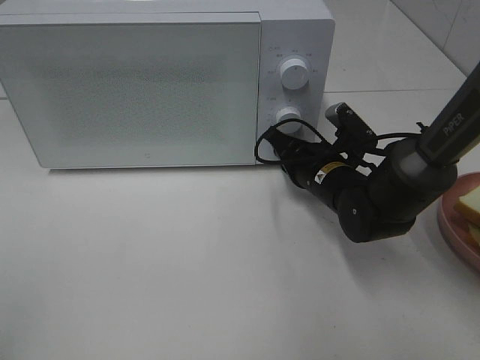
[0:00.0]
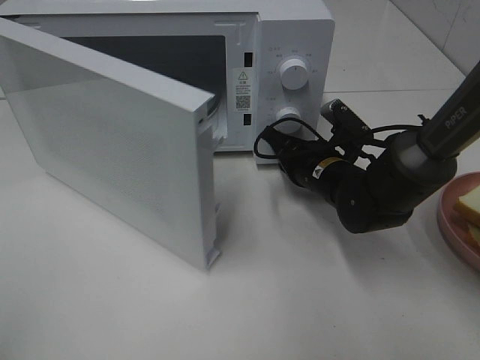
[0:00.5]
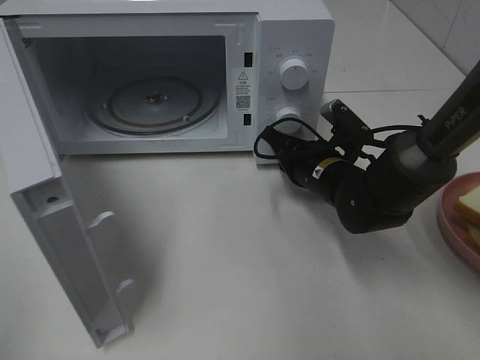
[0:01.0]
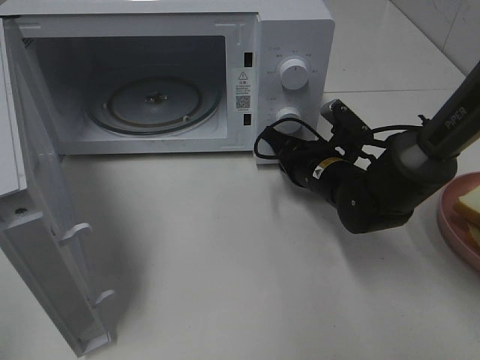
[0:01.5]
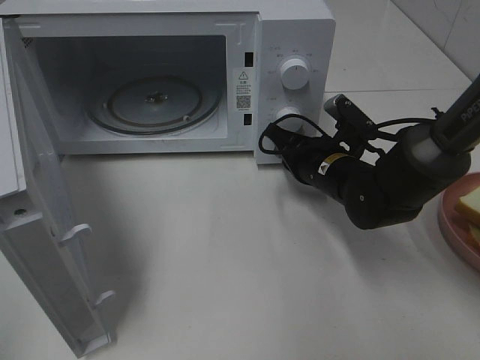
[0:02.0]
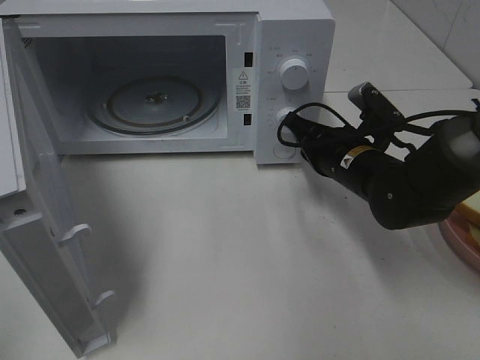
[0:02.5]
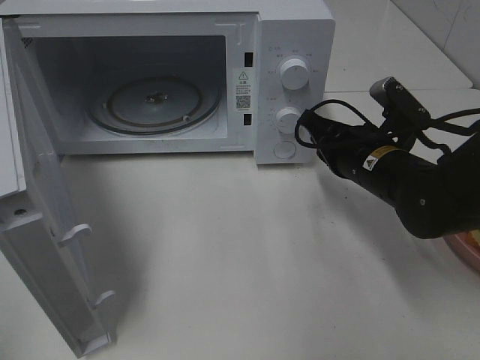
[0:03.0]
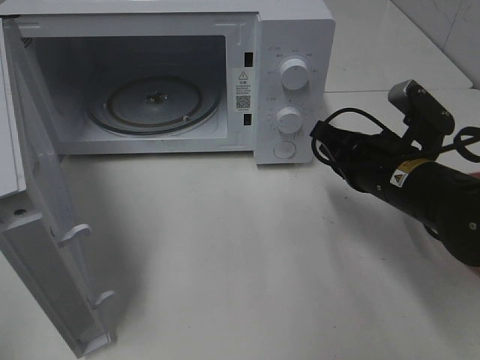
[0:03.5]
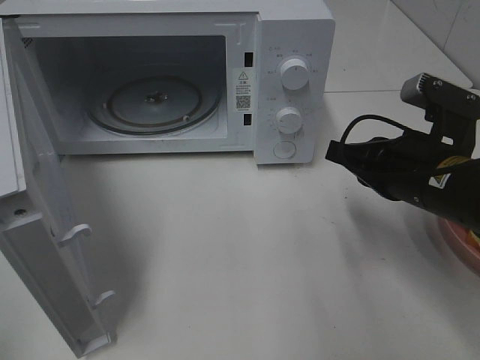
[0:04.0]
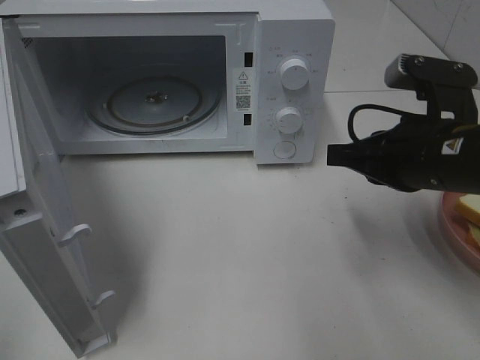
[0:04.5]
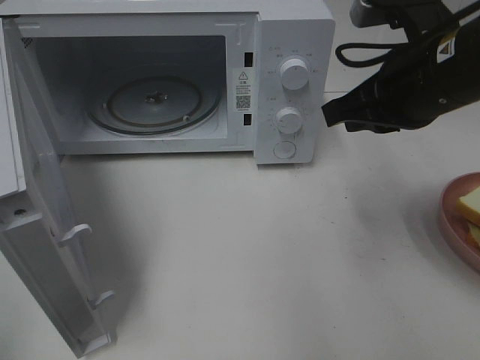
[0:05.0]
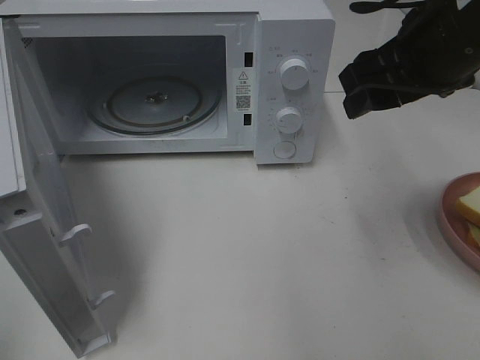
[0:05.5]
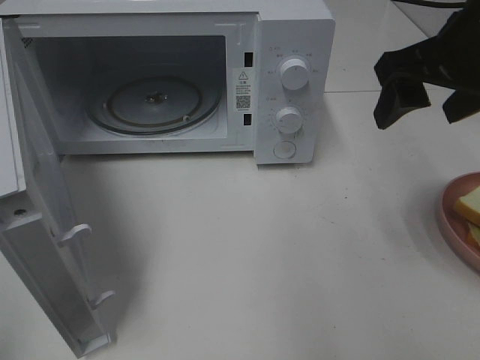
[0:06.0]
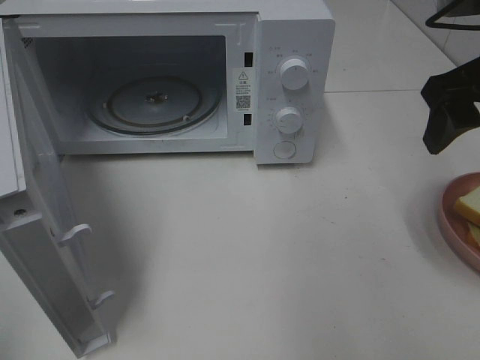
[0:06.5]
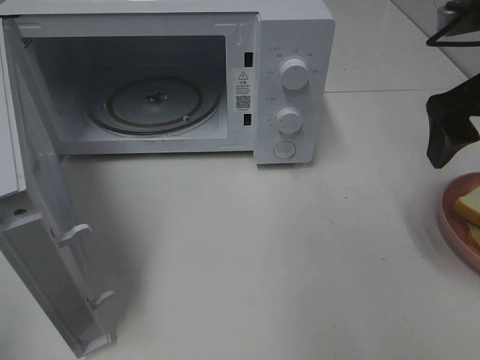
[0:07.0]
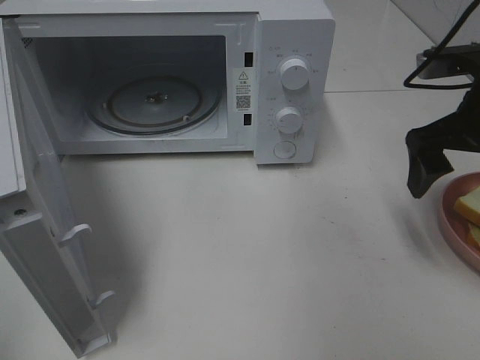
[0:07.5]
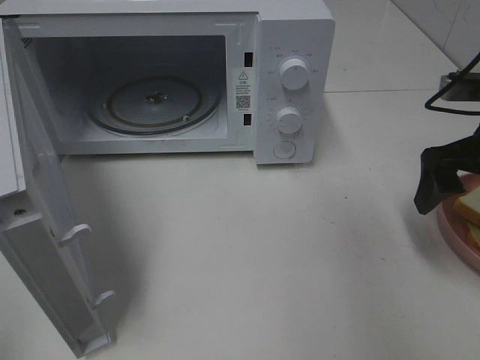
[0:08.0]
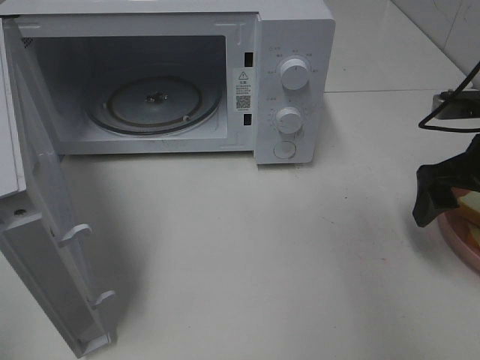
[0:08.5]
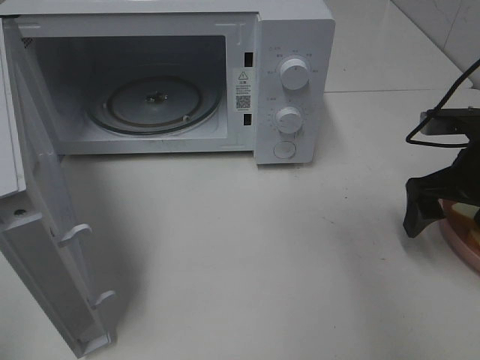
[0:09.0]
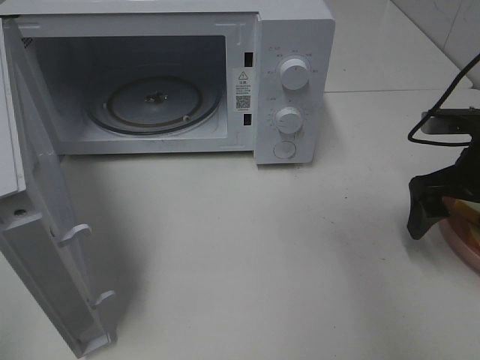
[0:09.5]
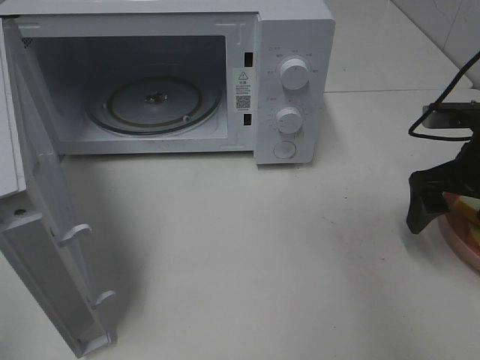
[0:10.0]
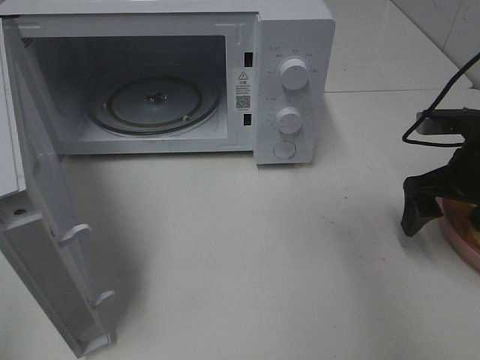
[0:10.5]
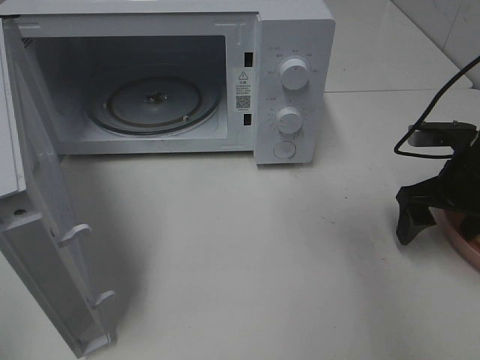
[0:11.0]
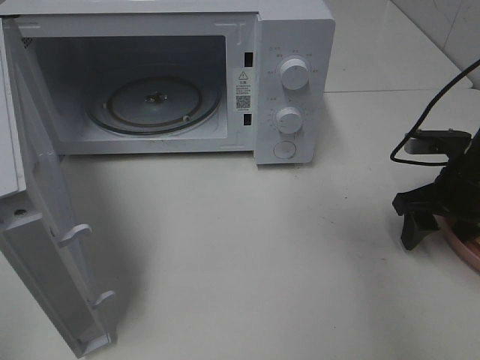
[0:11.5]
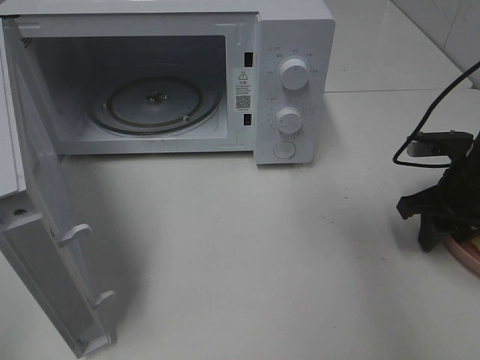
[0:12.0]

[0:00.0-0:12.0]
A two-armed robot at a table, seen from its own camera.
Task of the whole recording: Heat Sandwich.
Step, 0:00.0 to 0:03.0: Right hand: press the switch.
0:02.0 to 0:04.0: The right gripper travels backward, upward and to the right by roughly 15 cm.
0:04.0 to 0:06.0: The right gripper shifts about 15 cm upward, and opens up.
0:06.0 to 0:08.0: The right gripper travels downward and to the right by about 10 cm.
0:08.0 to 0:10.0: The grippers make only small movements.
0:10.0 to 0:12.0: The right gripper travels downward by roughly 5 cm, and closes.

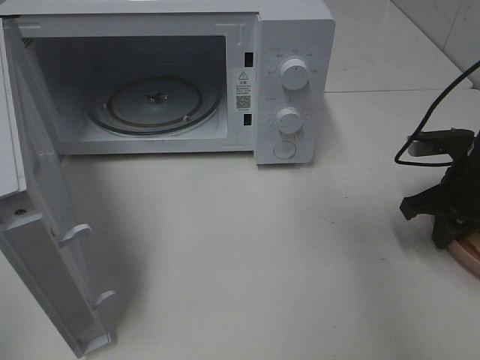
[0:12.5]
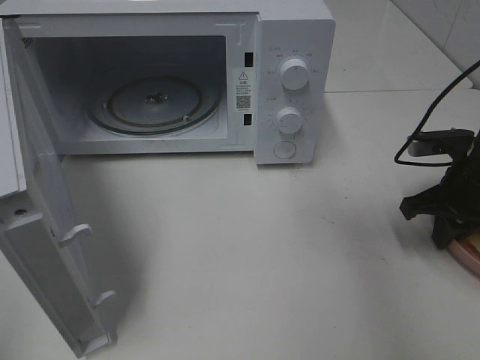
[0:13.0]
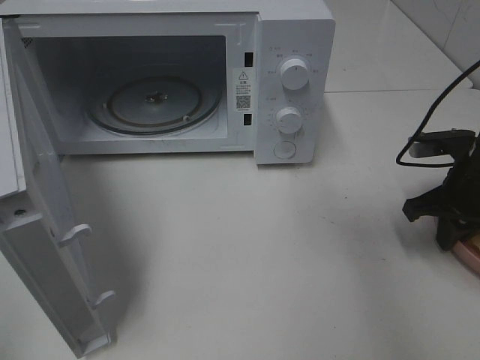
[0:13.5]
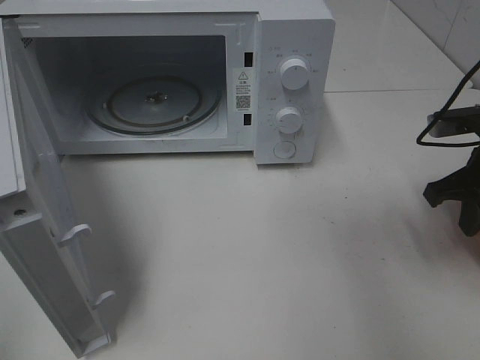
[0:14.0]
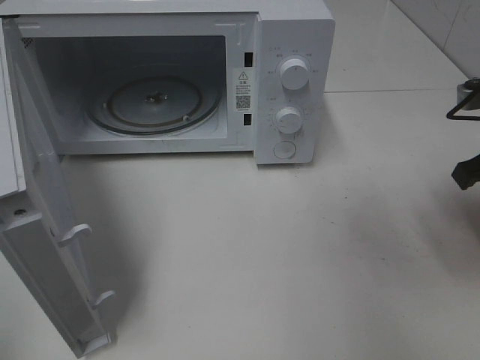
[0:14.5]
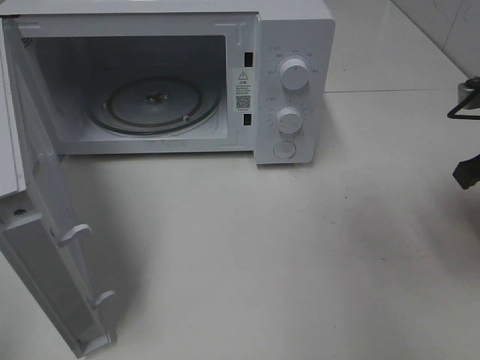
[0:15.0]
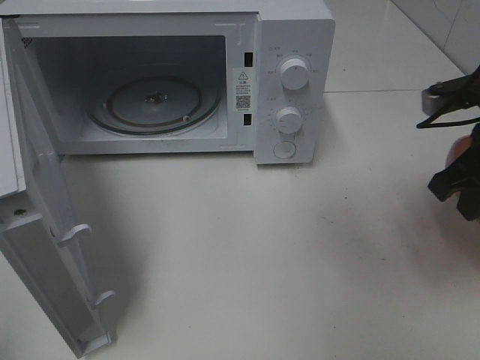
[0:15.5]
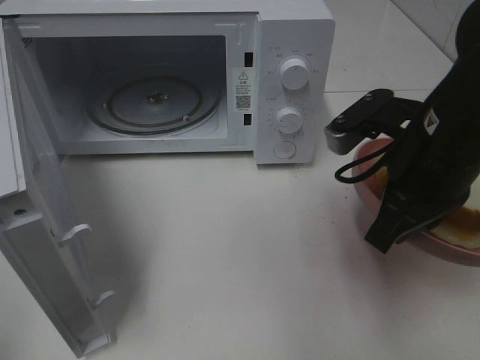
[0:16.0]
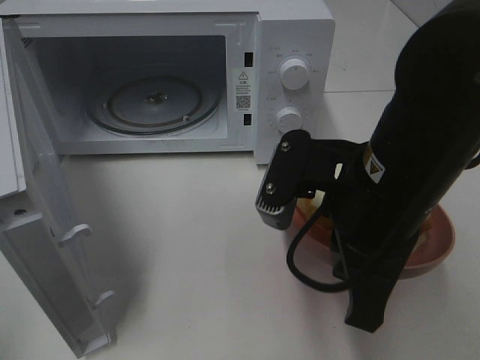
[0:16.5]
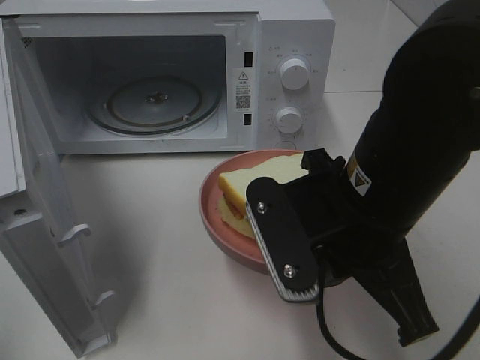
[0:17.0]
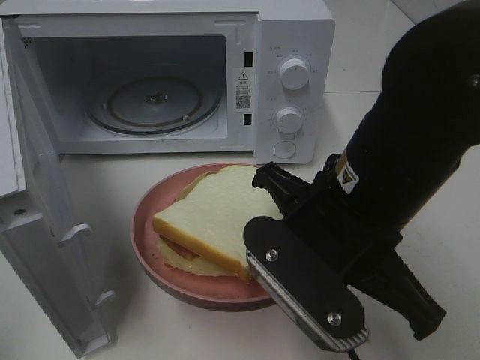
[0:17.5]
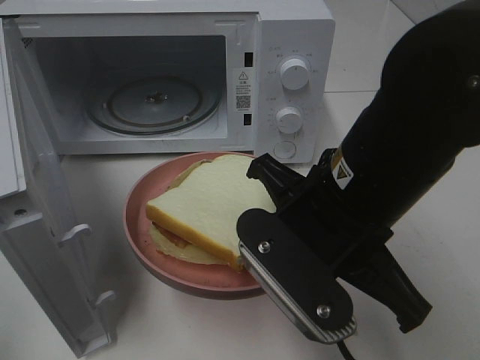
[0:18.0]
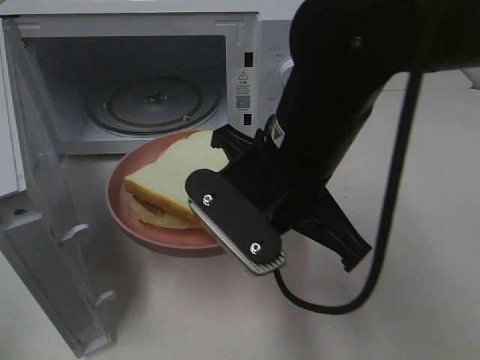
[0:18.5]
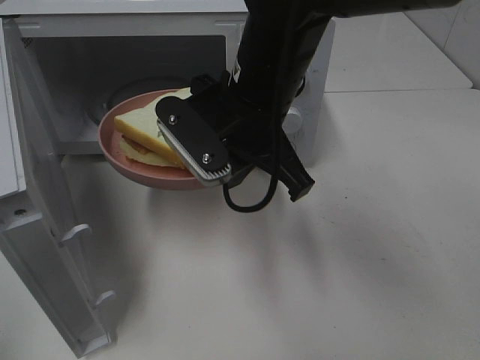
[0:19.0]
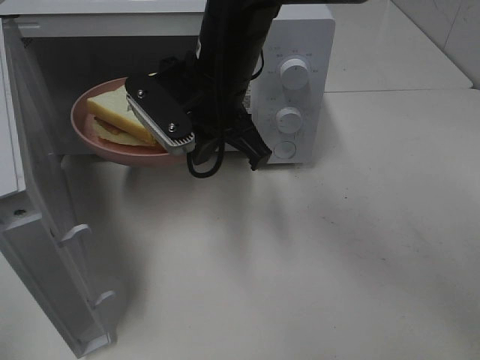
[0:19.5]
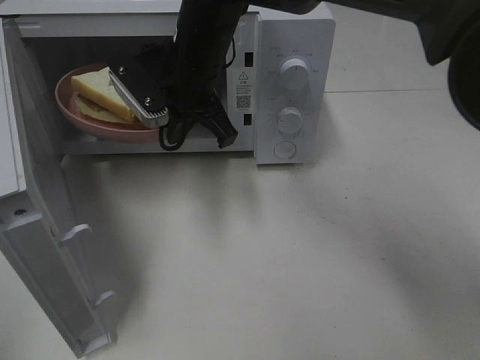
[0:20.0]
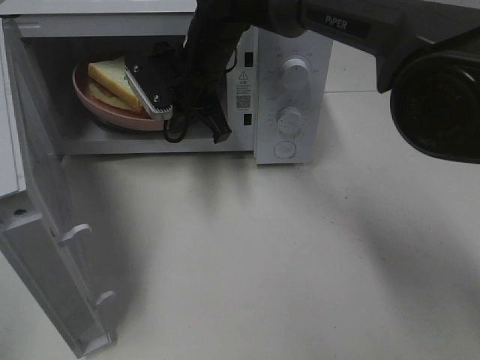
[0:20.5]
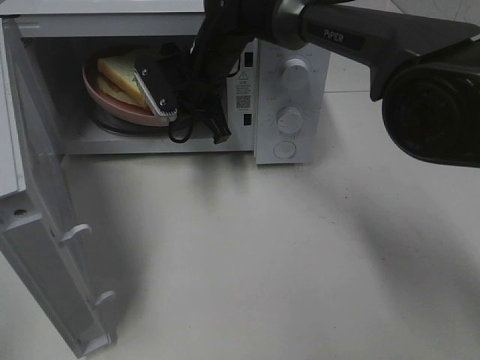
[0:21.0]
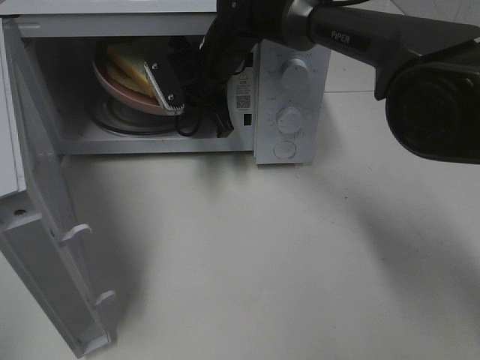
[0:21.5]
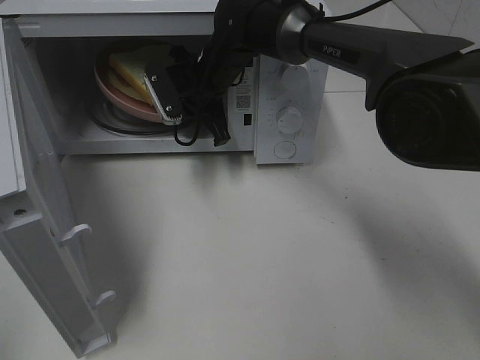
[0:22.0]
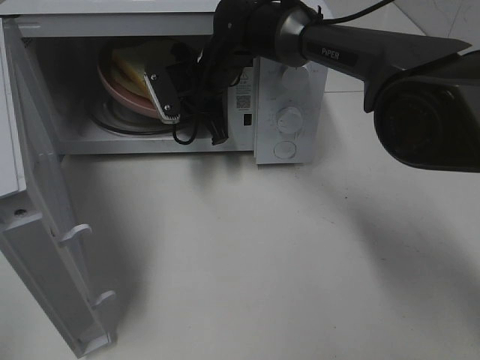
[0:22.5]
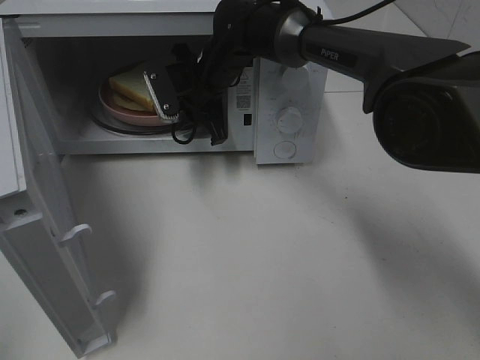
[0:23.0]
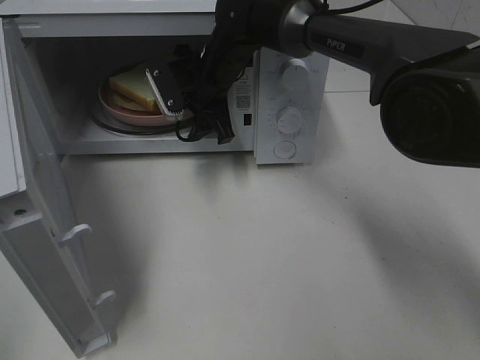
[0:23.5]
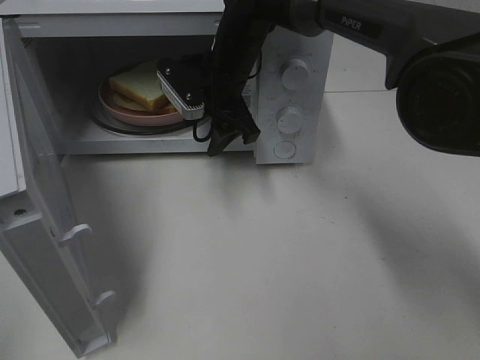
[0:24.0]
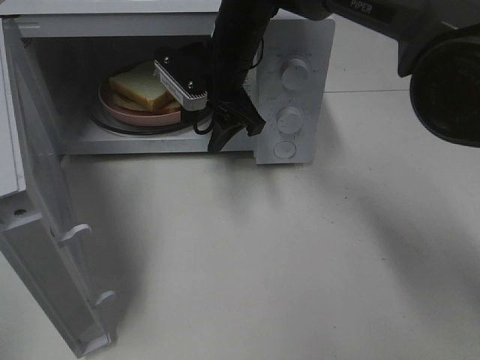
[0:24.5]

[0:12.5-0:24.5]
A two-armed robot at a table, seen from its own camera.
Task of the whole recording: Heat Sandwich.
Step, 0:13.0 to 0:24.0: Right hand: place the plate in the microwave.
0:12.5 to 0:14.5: The right gripper moves upward, approximately 10 cm.
0:14.5 to 0:16.5: The right gripper goes some 20 cm to the left and backward.
0:16.5 to 0:18.5: The right gripper heads to the left, covering about 5 cm.
0:18.5 to 0:20.5: The right gripper is displaced forward by about 20 cm.
0:20.5 to 0:22.5: The right gripper shifts by roughly 5 cm.
0:22.5 to 0:24.5: The right gripper moves roughly 5 cm, and opens its fingers.

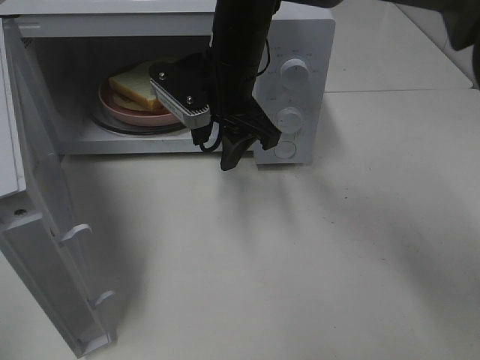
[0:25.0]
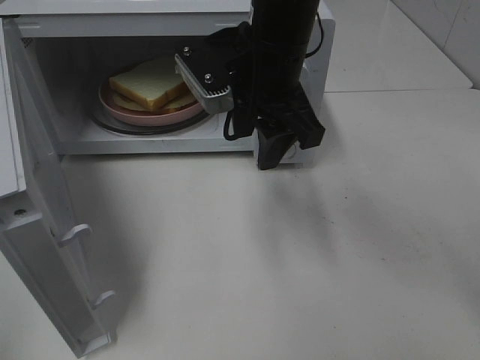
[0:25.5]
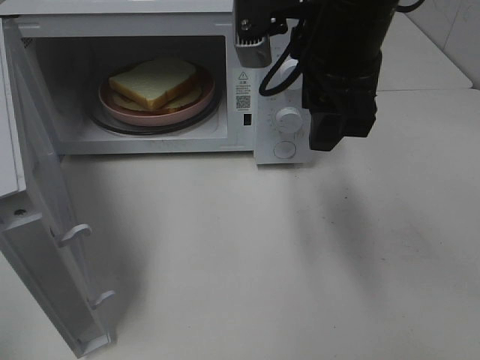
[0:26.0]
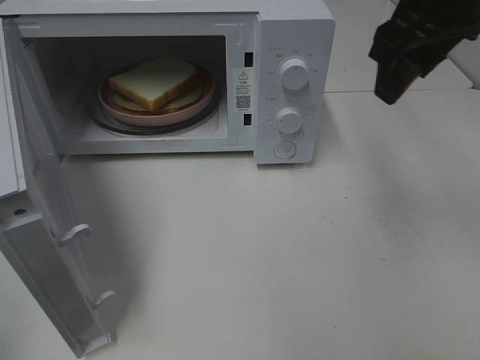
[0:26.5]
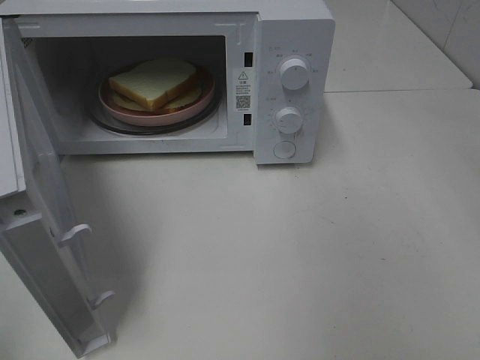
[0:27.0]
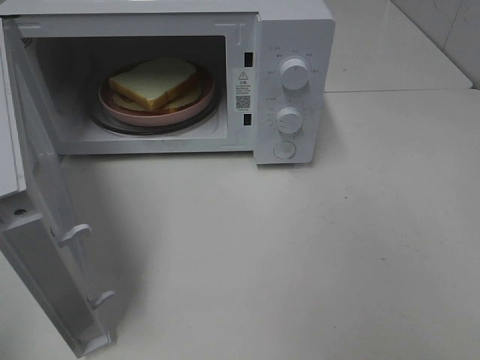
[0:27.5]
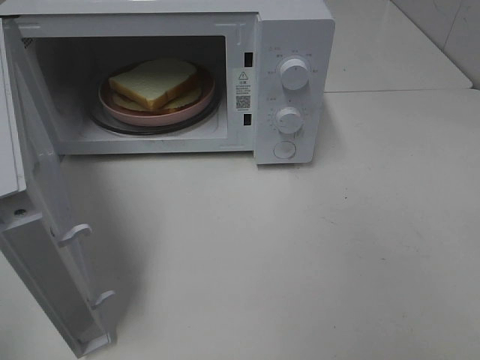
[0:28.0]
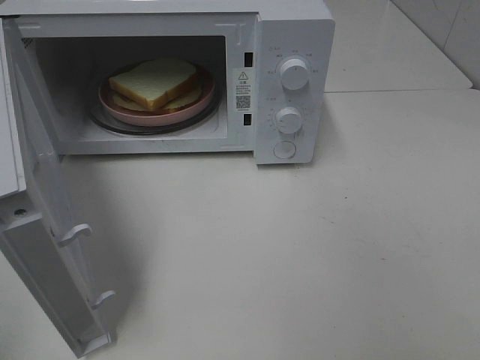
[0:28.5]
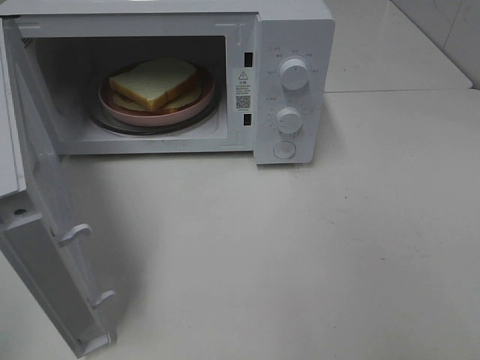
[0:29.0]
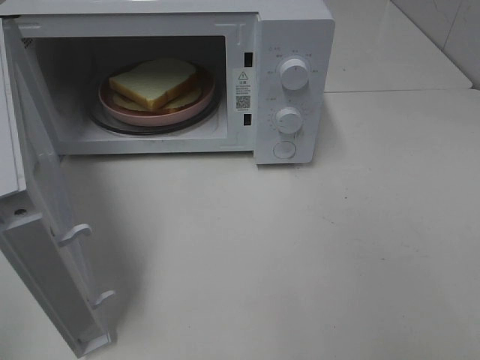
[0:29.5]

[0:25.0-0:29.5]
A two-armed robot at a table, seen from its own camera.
Task of the whole recording: Heat Sandwich.
0:25.0 to 0:27.0: The right gripper moves to the right, some 30 cm.
